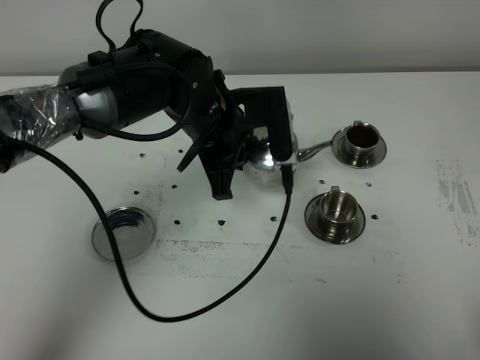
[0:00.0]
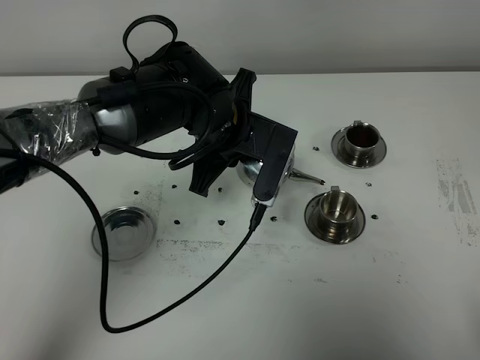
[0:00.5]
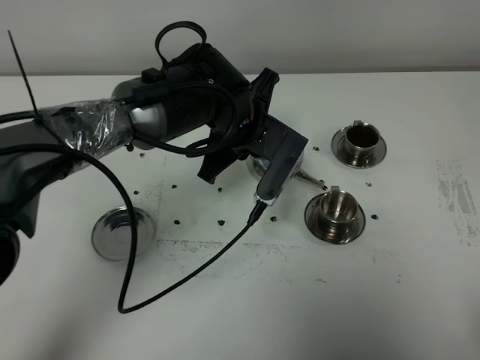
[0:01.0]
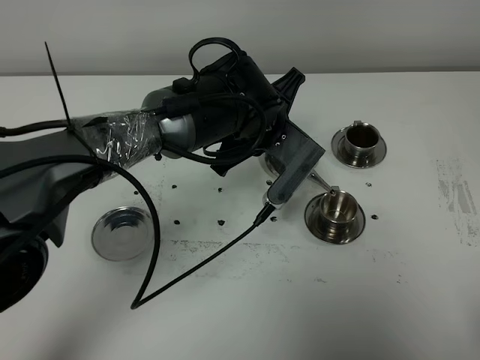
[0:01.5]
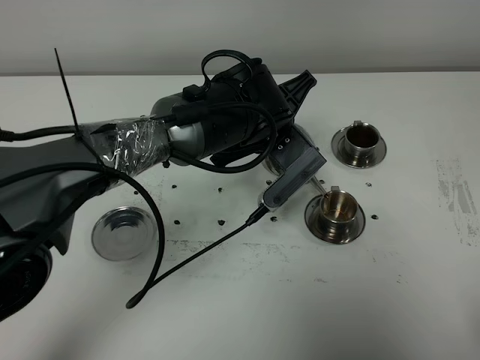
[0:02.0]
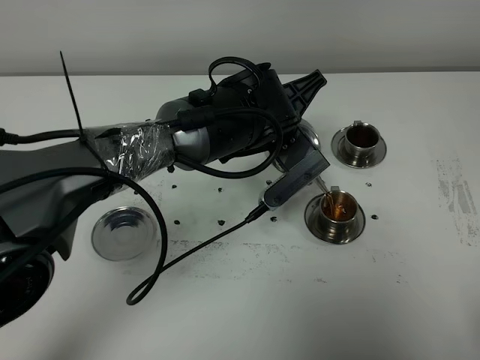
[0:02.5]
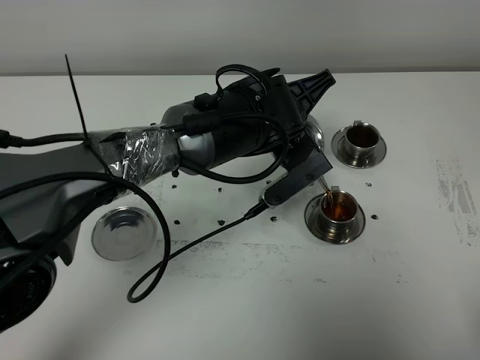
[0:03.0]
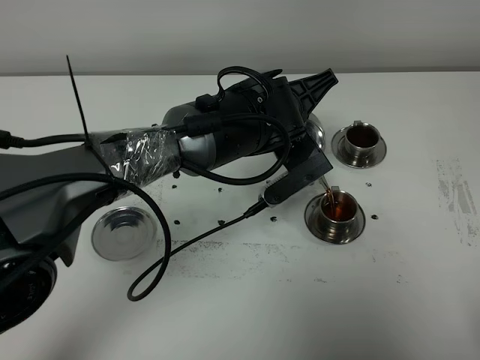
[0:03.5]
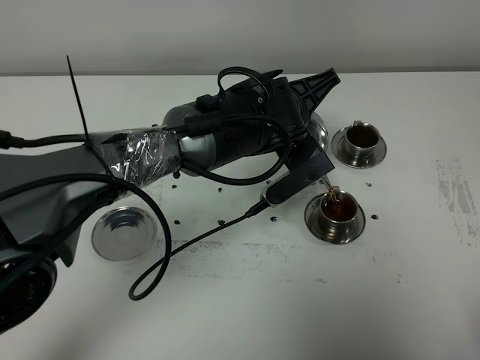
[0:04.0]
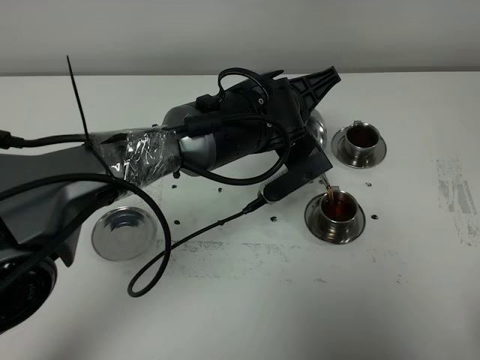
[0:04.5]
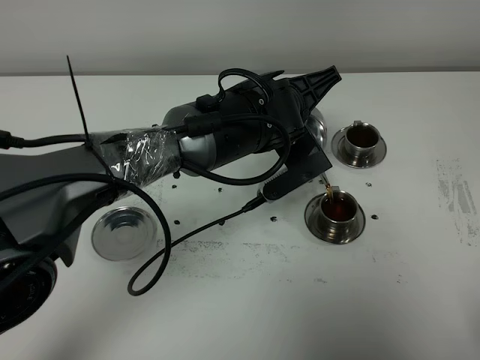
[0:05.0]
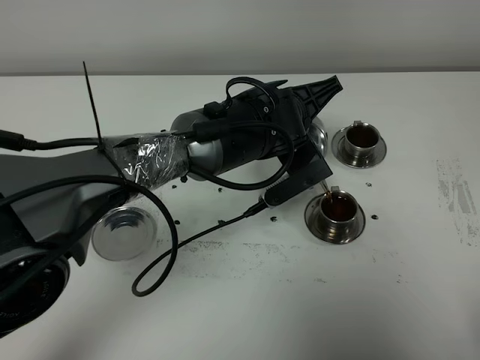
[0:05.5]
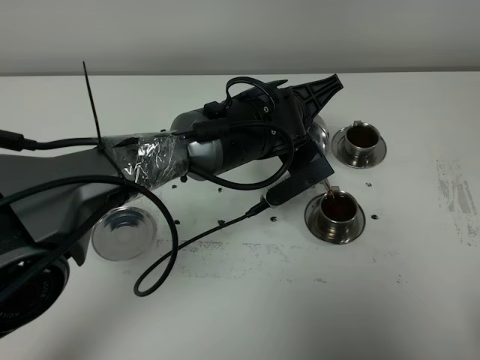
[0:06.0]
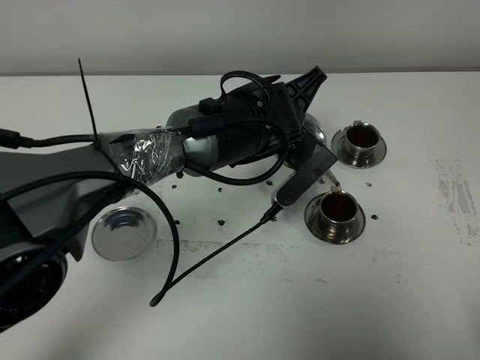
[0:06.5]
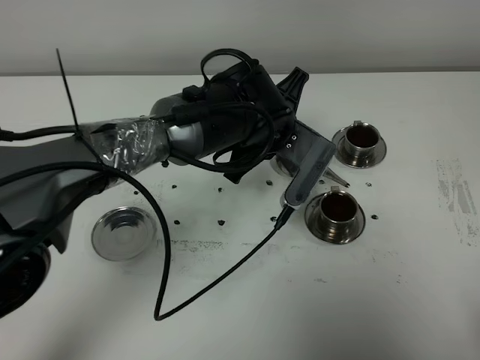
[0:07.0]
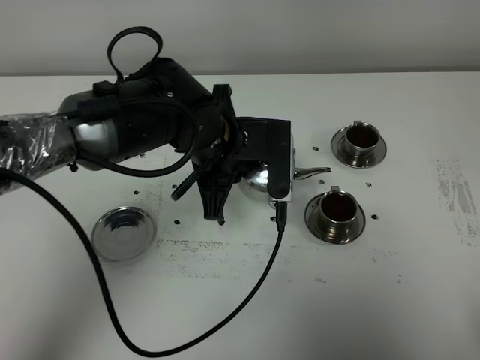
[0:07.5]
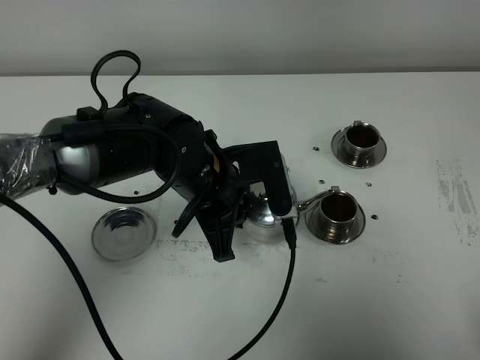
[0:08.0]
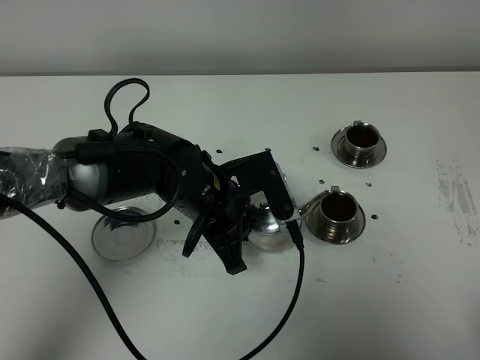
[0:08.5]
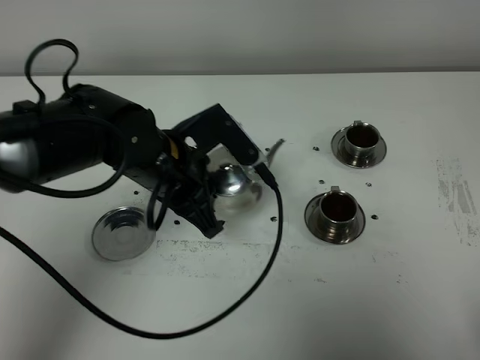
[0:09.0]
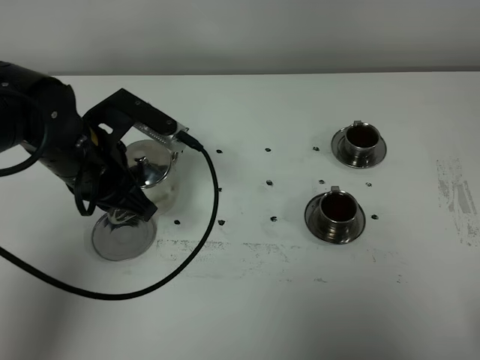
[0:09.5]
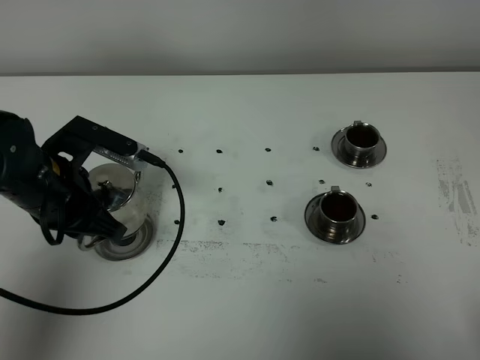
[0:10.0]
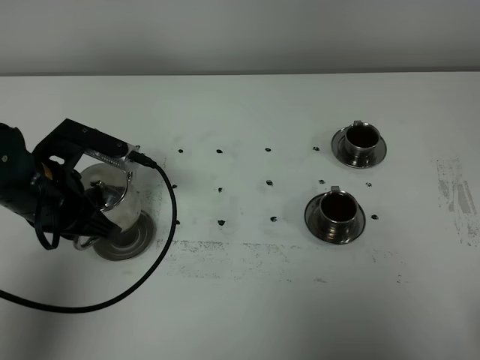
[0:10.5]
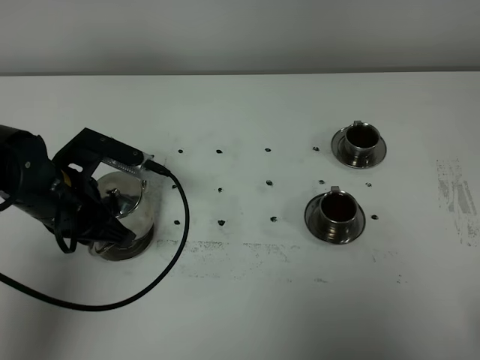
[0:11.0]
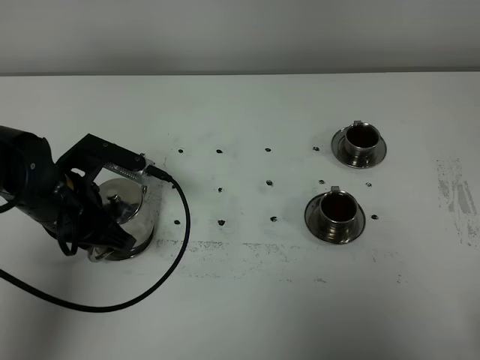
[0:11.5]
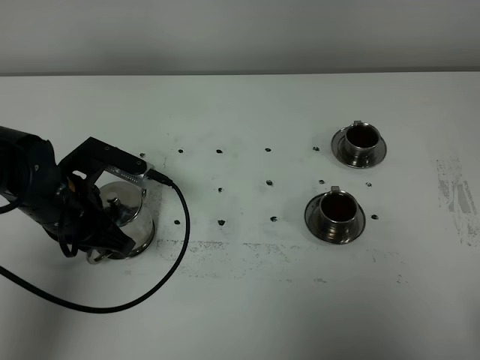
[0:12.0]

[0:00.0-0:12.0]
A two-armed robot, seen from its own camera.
Task of the whole recording: grasp the stainless steel teapot and pour the tea into the two stainless steel teacups one by one, put the stainless steel teapot back in its original place.
Step, 0:00.0 to 0:07.0: Pour tea into the teacup with the left gripper.
0:00.0 to 0:02.0: The left gripper moves to the right, about 5 cm.
0:02.0 to 0:04.0: The grippers move only a little.
0:04.0 to 0:06.0: The two grippers keep their place.
0:06.0 to 0:08.0: The left gripper goes some 10 cm to the left and backward.
0:08.0 to 0:10.0: The left gripper goes approximately 15 cm to the left.
0:10.0 to 0:12.0: There are only small adjustments of the grippers.

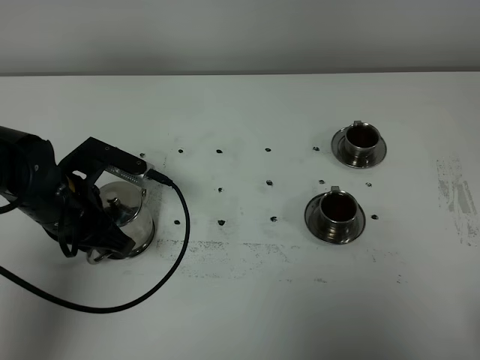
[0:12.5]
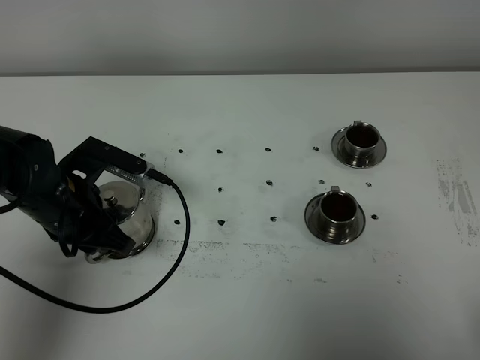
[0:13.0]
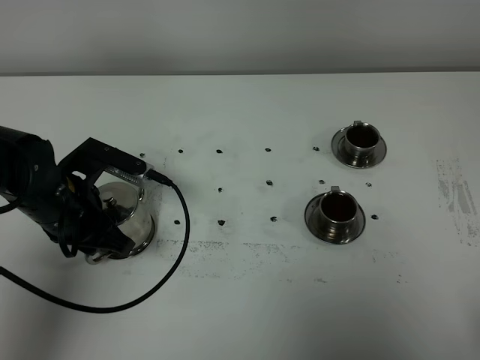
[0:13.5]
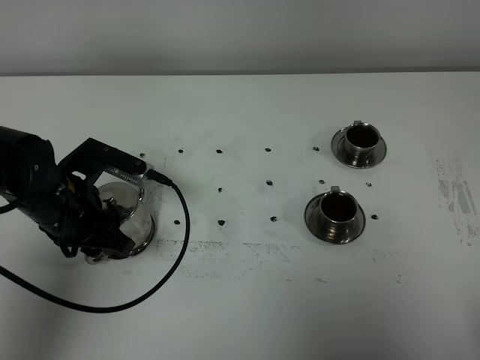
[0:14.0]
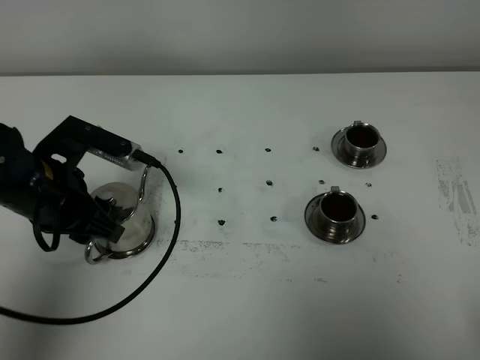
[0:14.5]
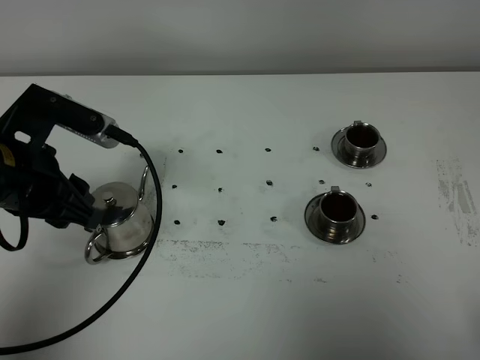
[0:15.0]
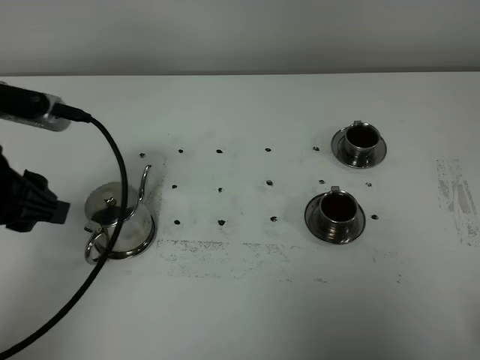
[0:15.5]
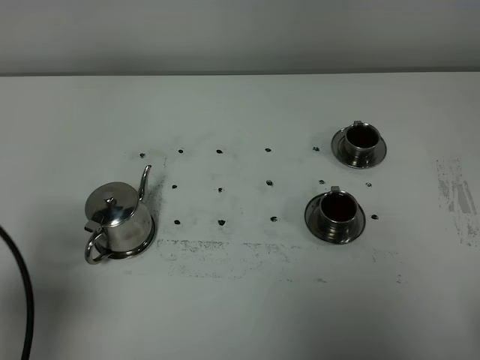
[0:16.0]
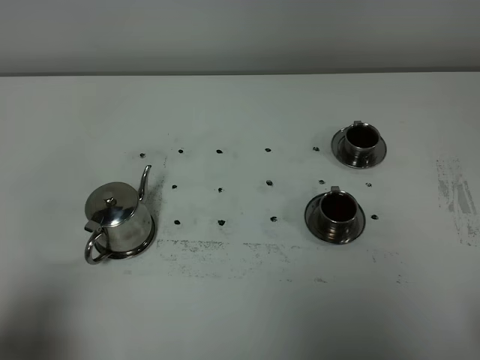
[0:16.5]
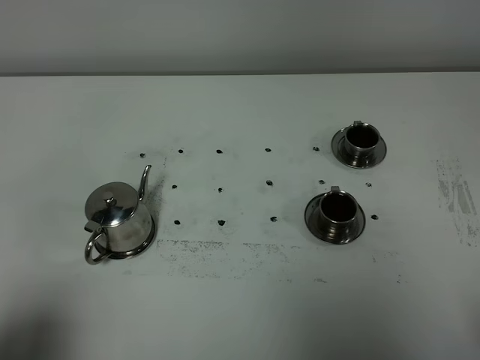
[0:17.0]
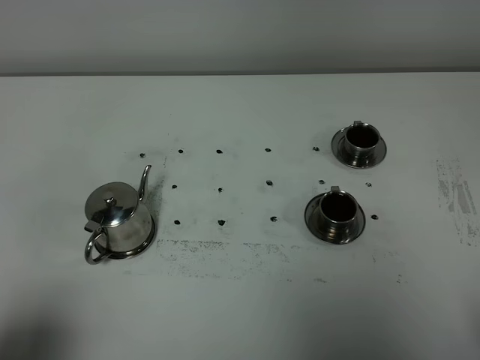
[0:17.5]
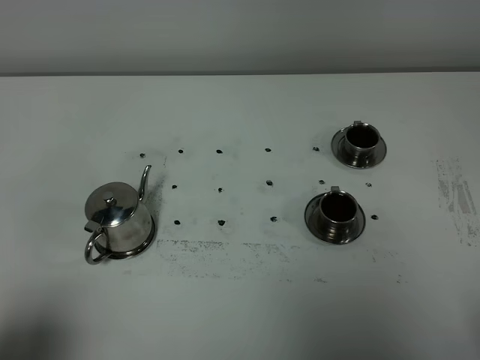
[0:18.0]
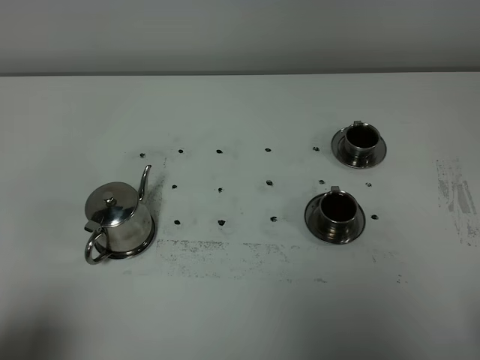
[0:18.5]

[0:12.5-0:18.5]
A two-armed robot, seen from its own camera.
Task of the whole recording: grasp the stainless steel teapot and pour the tea into the two stainless steel teacups one by one, put the stainless steel teapot back in its original place.
0:12.5 to 0:14.5: The left gripper opens.
0:14.5 to 0:16.5: The left gripper is displaced backward by some 25 cm.

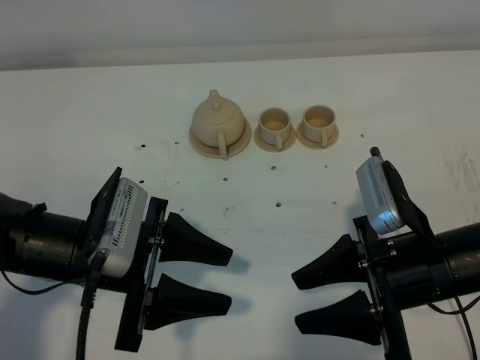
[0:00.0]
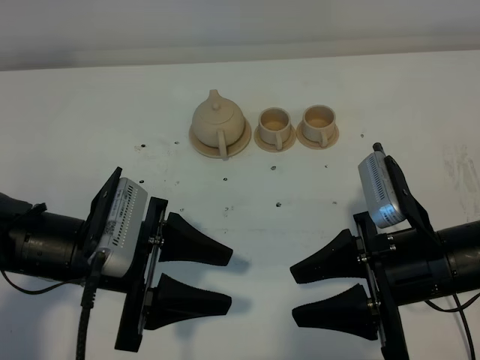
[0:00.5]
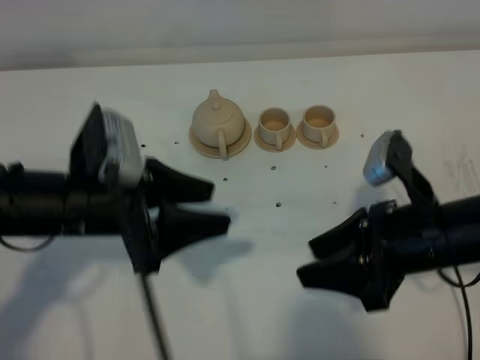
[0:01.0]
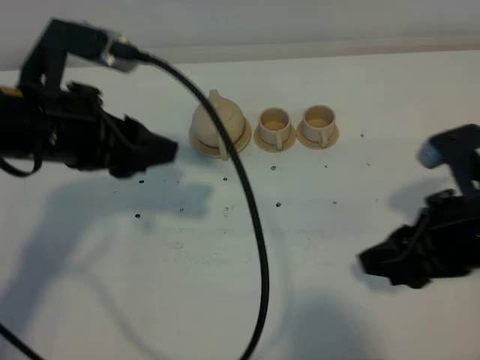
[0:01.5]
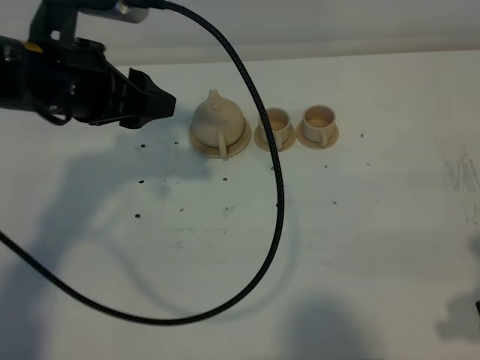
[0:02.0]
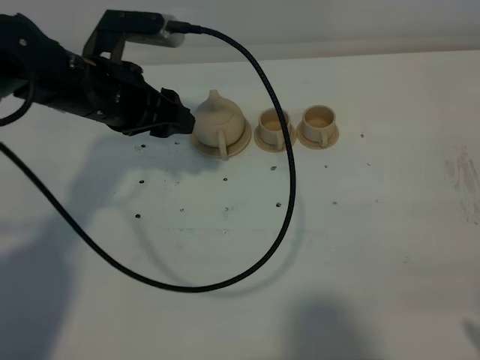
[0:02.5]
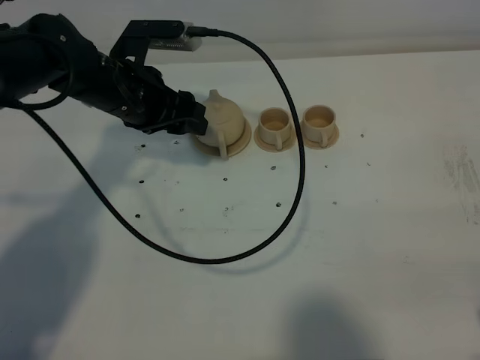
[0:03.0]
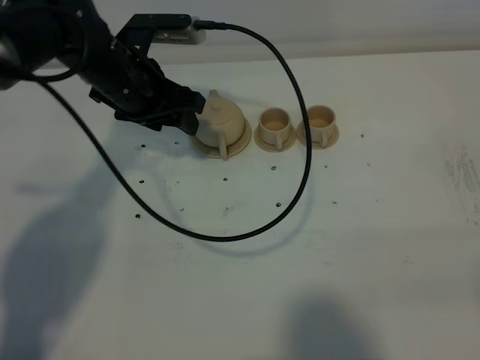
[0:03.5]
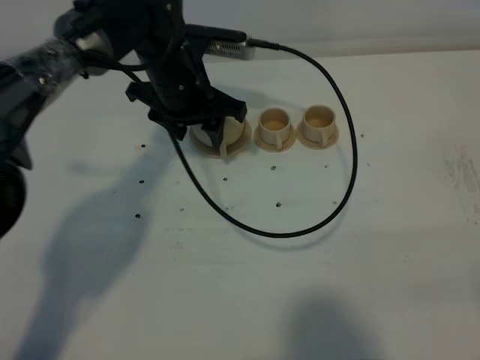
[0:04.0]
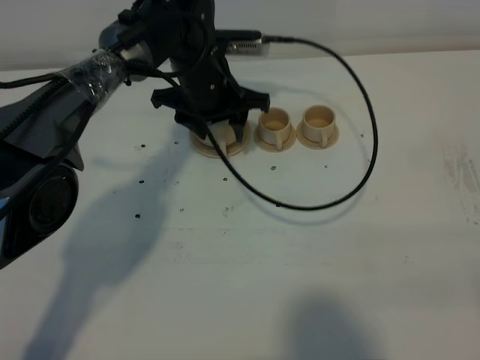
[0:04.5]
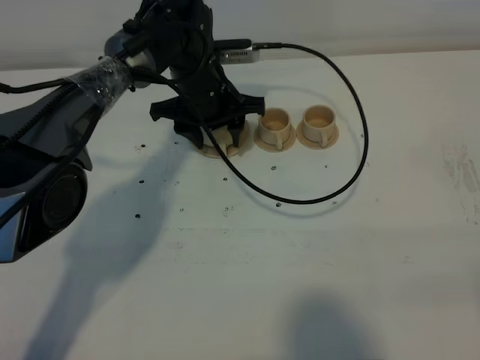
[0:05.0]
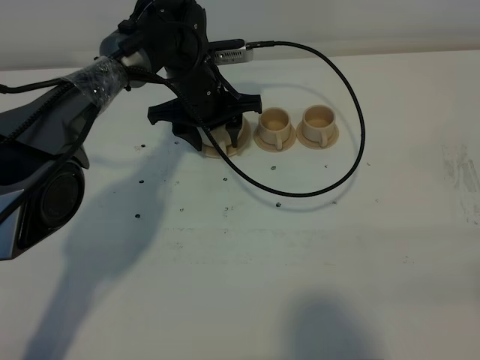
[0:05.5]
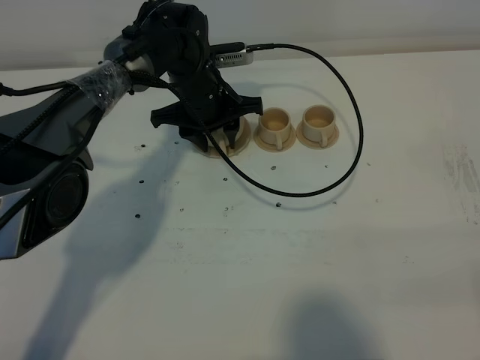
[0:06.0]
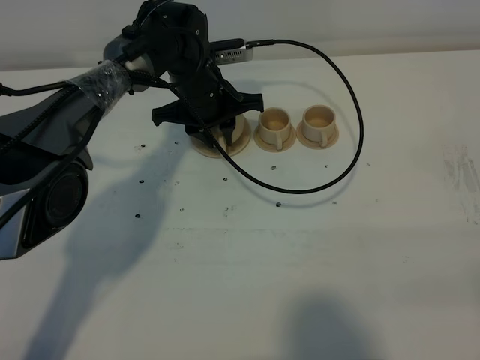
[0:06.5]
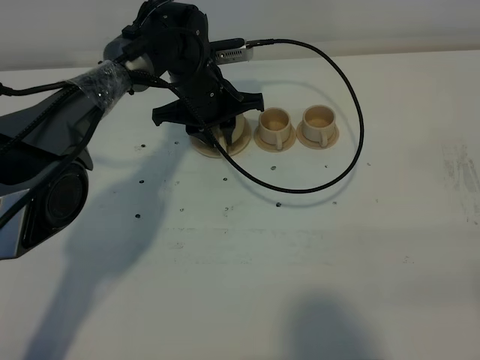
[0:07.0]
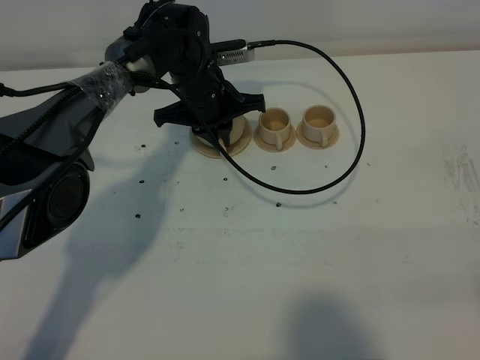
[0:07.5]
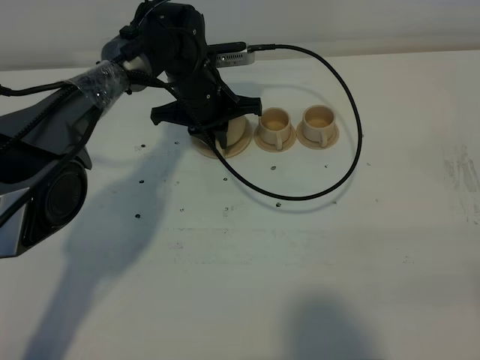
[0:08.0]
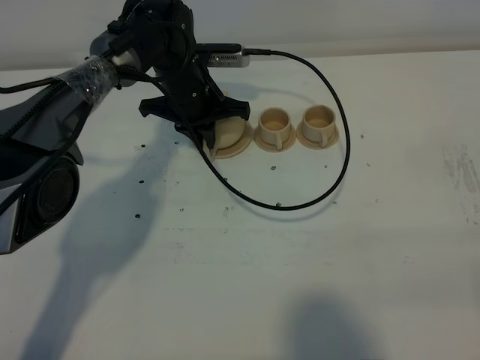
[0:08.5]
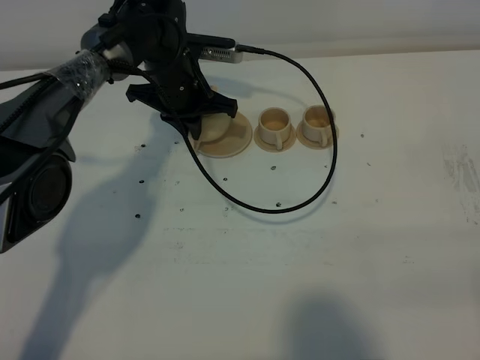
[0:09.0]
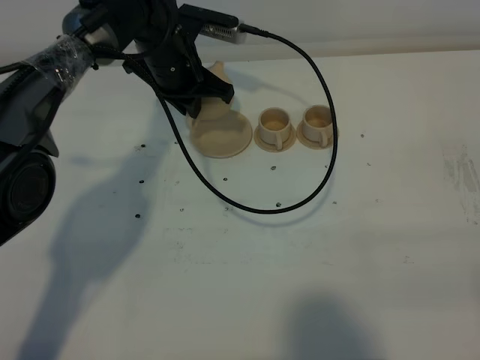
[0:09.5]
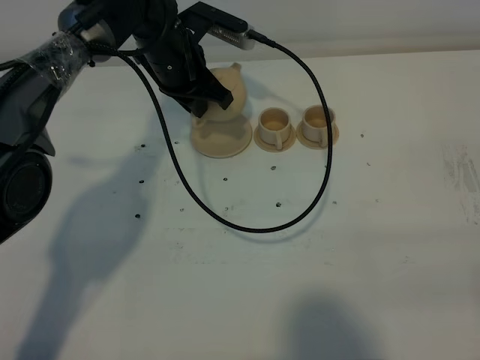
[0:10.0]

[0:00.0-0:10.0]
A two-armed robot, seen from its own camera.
Task of the whole recording: grasp the brown teapot and pour the tea into the two brown teacups one by one, put the brown teapot back in its original place.
Step, 0:00.0 to 0:09.0: Pick up the teapot with the left gripper.
0:00.0 to 0:02.0: The right gripper is displaced to the right, backward and upward by about 15 cm. Meanwhile the left gripper goes approximately 15 cm forward and upward.
0:02.0 to 0:04.0: The right gripper heads backward, covering roughly 10 cm; the left gripper moves forward, downward and to the right, about 20 cm.
0:04.0 to 0:06.0: The left gripper is displaced downward by some 5 cm.
0:06.0 to 0:08.0: The left gripper closes its fingers.
0:08.0 to 0:10.0: The left gripper goes about 5 cm upward.
